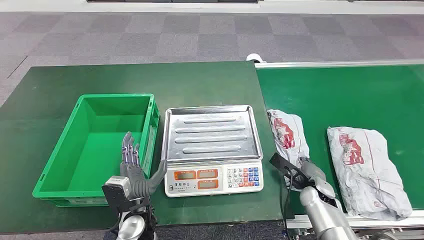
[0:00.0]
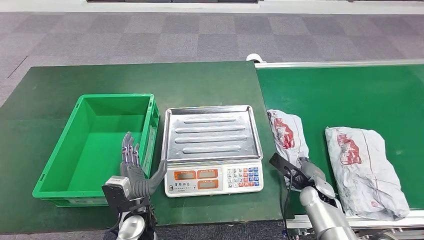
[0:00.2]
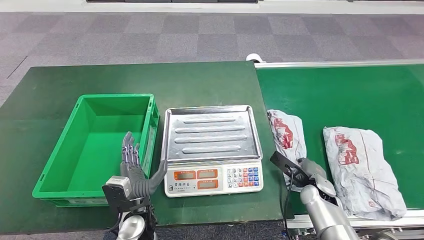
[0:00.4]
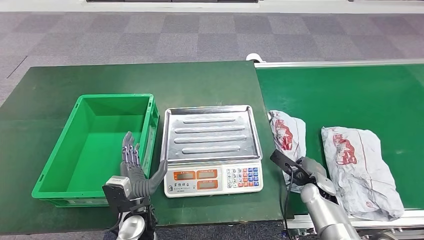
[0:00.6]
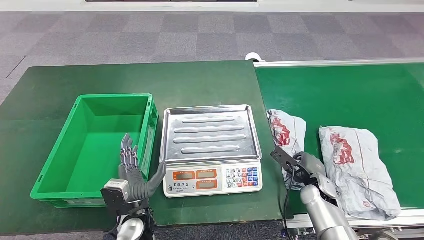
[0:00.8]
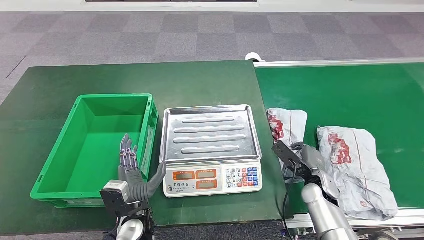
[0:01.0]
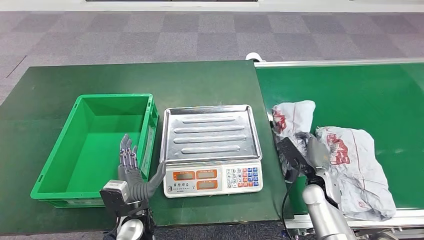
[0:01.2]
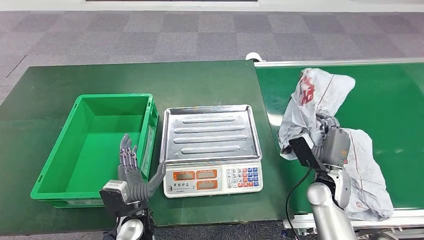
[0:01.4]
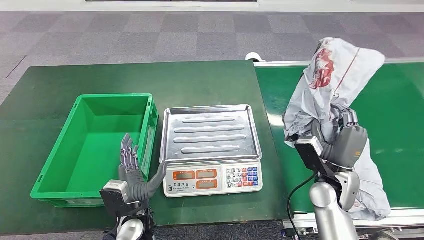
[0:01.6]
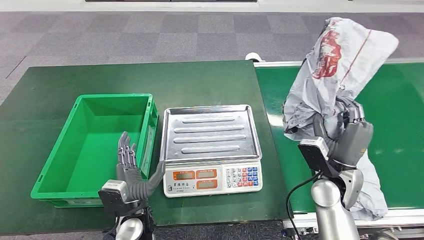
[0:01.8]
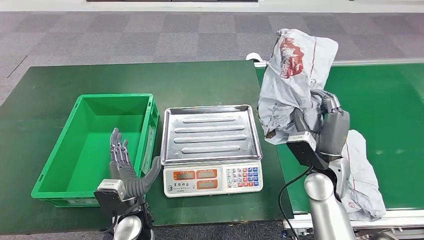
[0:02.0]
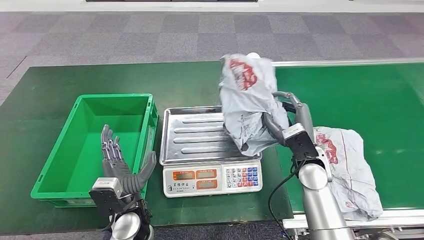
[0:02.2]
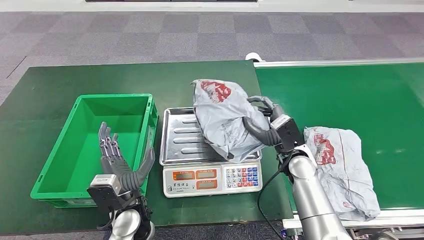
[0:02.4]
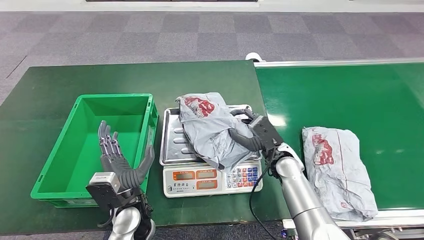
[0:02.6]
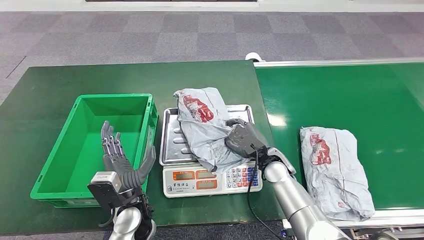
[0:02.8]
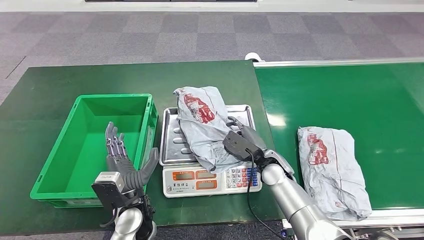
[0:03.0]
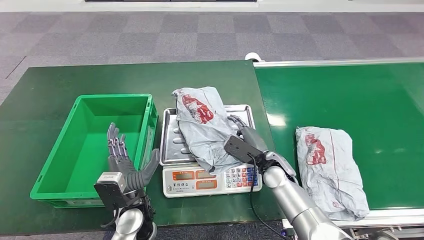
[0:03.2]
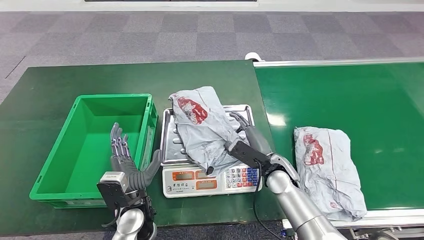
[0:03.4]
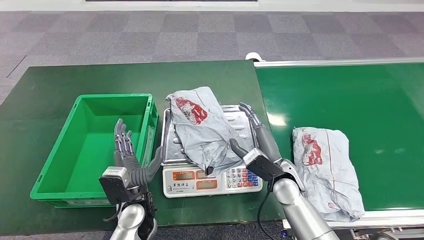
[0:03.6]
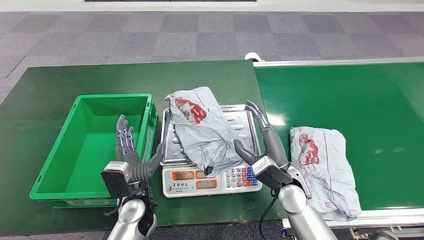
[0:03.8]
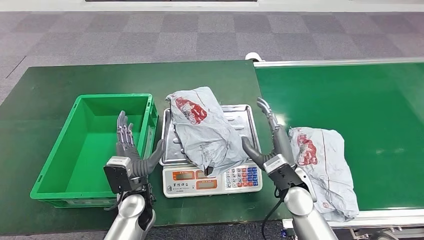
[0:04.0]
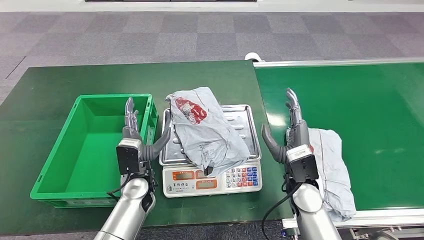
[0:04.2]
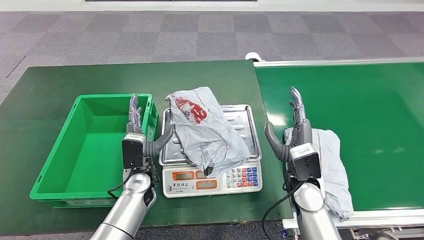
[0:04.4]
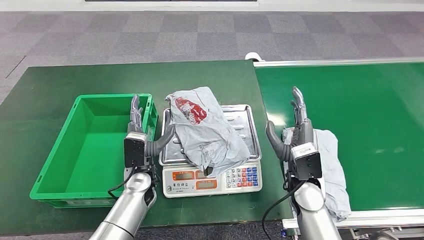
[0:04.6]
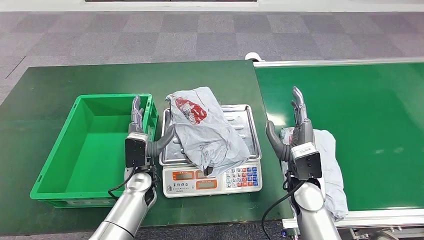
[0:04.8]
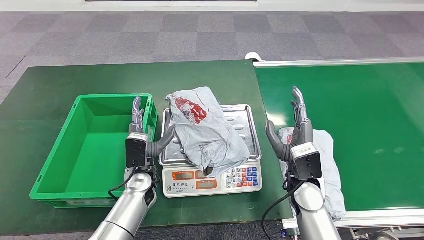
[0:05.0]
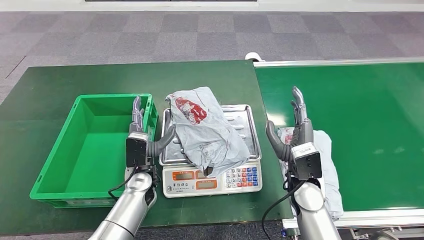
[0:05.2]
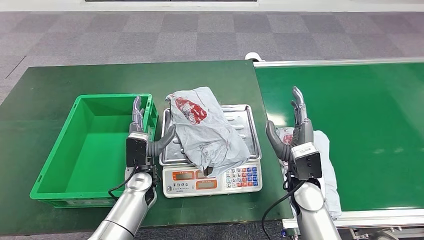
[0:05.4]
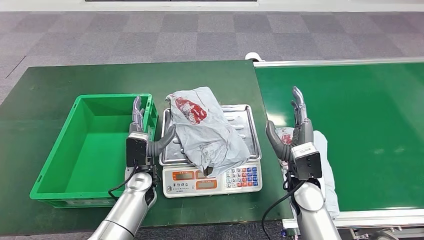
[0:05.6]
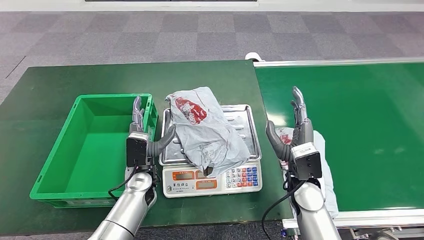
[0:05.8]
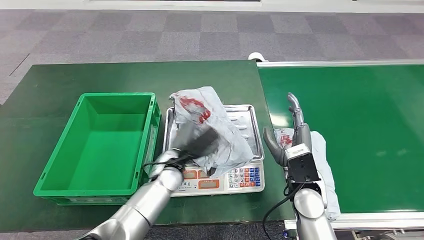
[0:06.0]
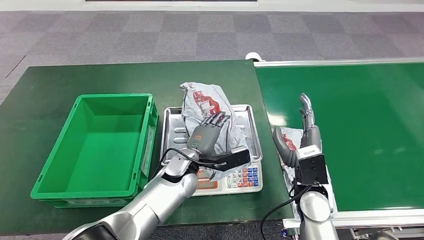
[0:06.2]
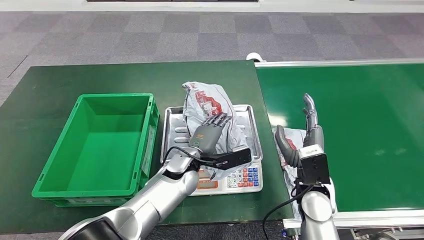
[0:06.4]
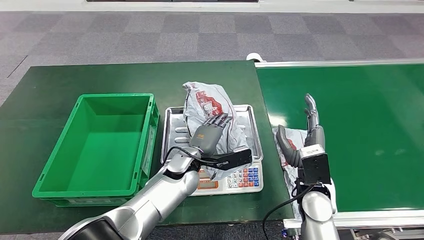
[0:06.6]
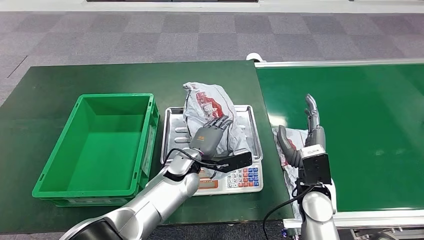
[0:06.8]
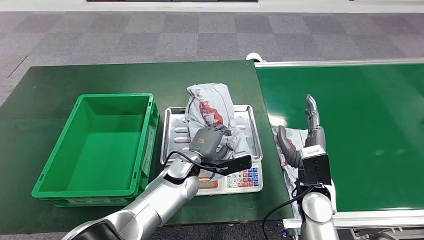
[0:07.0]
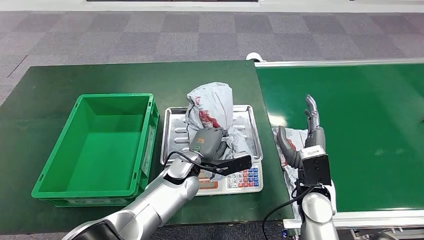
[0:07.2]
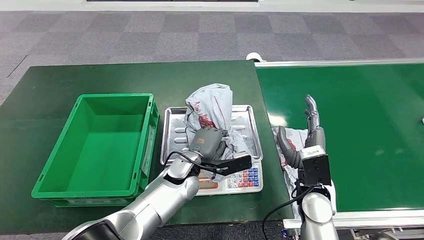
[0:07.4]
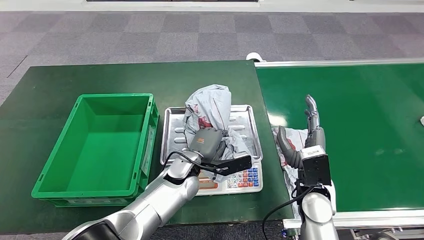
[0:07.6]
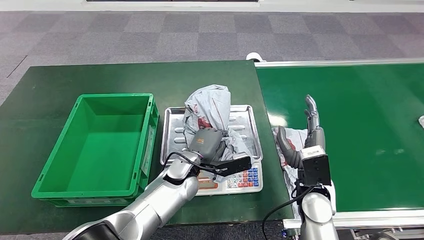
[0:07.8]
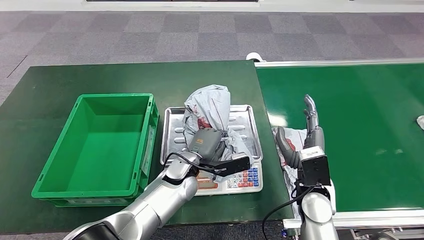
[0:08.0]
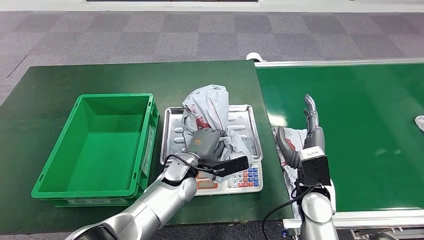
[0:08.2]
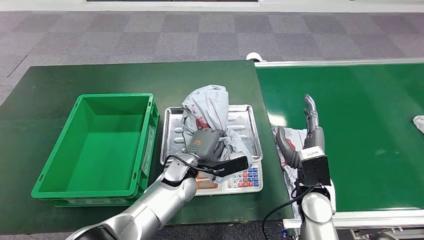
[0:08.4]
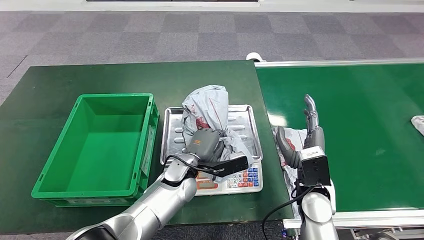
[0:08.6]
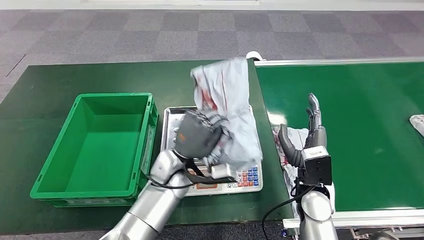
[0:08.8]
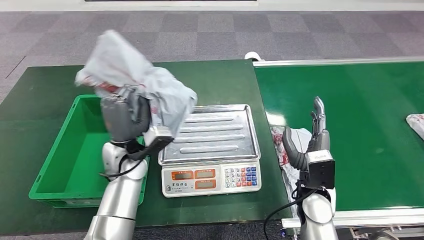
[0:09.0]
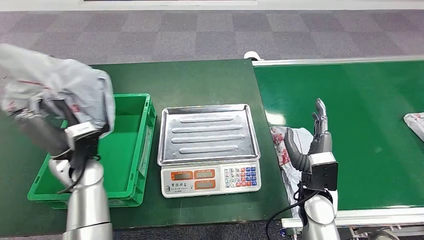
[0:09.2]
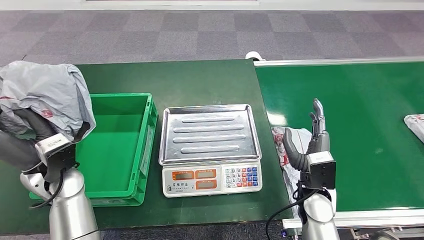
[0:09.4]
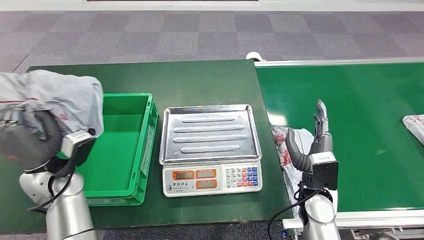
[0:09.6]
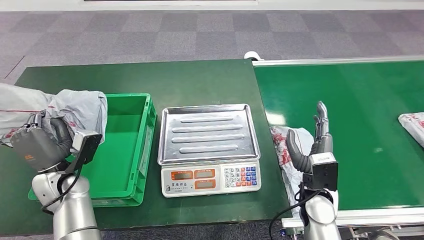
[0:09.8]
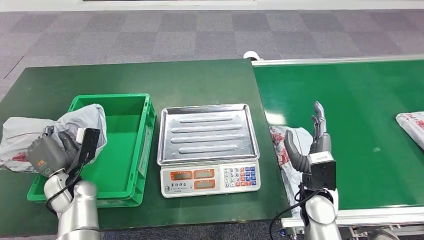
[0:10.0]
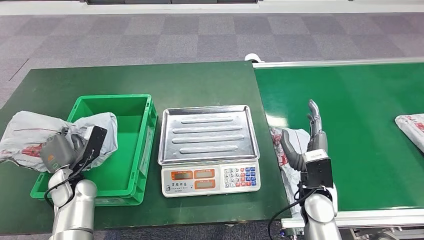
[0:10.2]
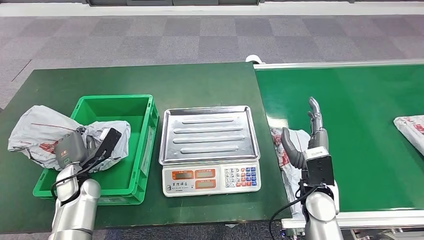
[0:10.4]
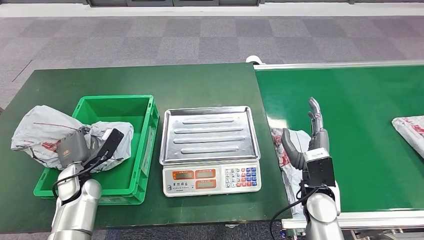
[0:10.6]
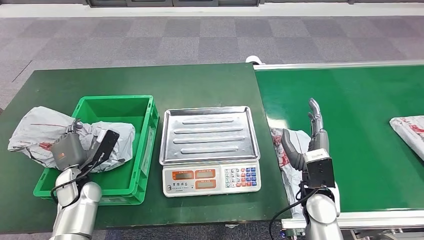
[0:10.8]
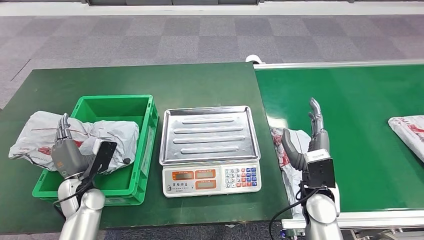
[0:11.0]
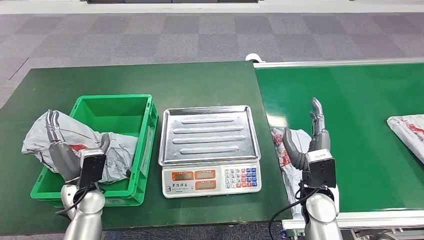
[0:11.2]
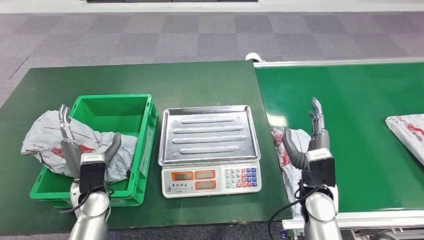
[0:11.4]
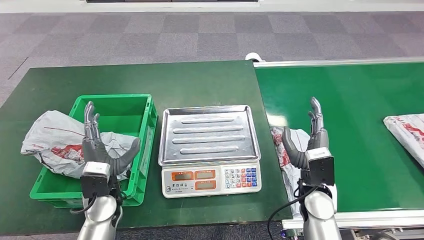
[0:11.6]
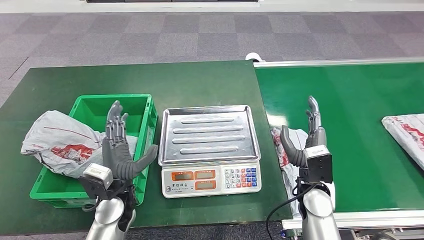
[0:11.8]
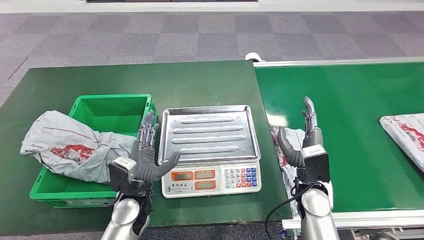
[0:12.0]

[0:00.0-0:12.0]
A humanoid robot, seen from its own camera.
Step, 0:00.0 to 0:01.8: Pick up the package from the conveyor belt.
Step, 0:02.0 to 0:04.0: Place the package onto the inbound machine.
Step, 0:07.2 to 0:09.0: Pick up the package from the inbound machine.
Step, 0:09.2 to 0:12.0: Place the package into the parcel locker.
0:03.0 to 0:04.4: The left hand is displaced forward by approximately 10 cm. Meanwhile the right hand travels backward and upward by approximately 10 cm.
0:06.0 to 0:07.6: The left hand heads to the right, covering about 5 cm.
